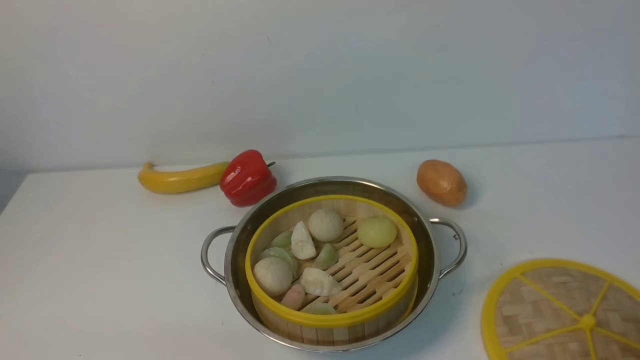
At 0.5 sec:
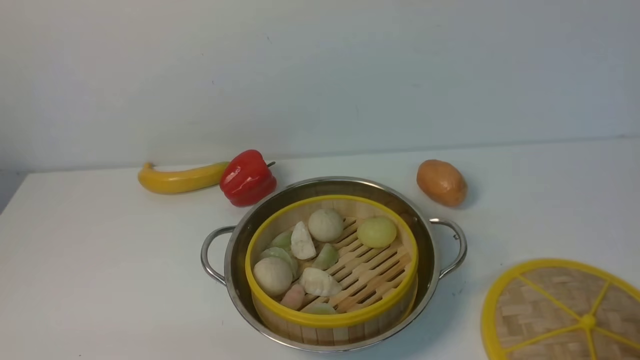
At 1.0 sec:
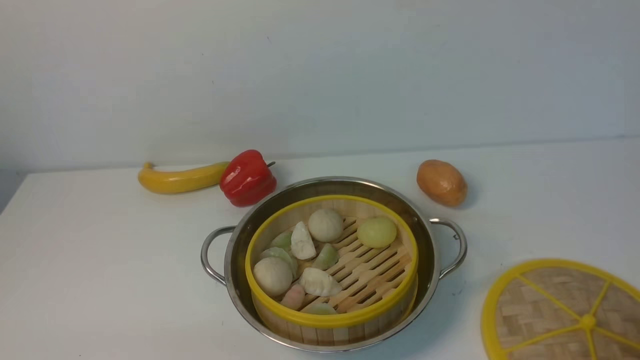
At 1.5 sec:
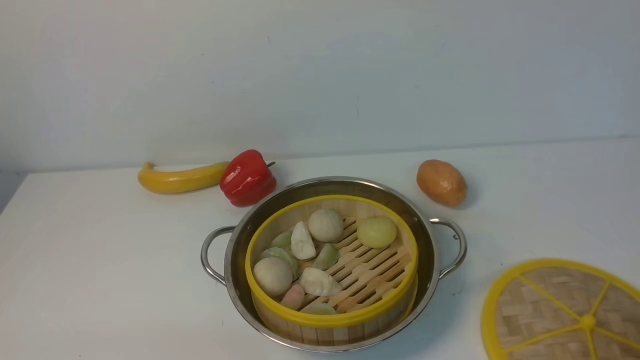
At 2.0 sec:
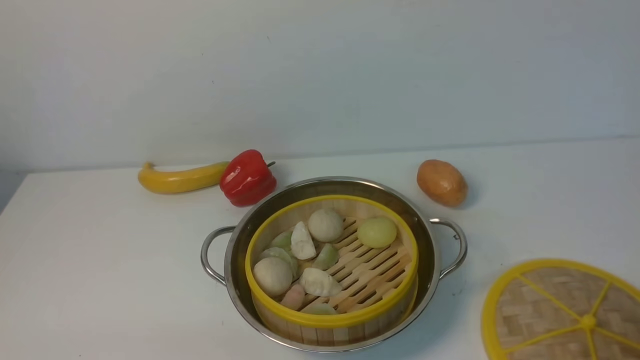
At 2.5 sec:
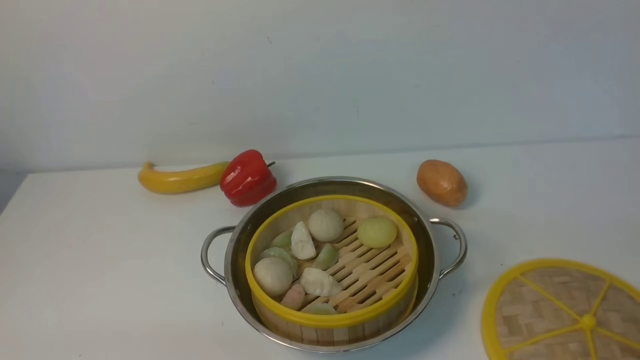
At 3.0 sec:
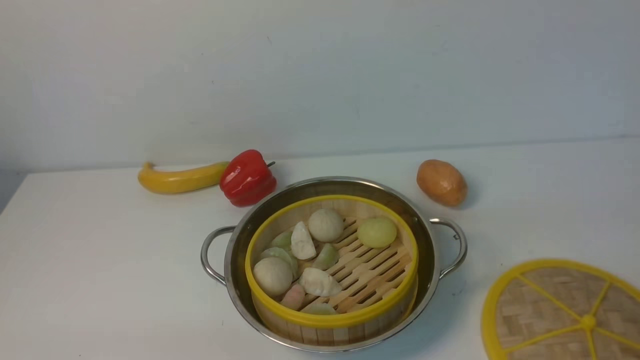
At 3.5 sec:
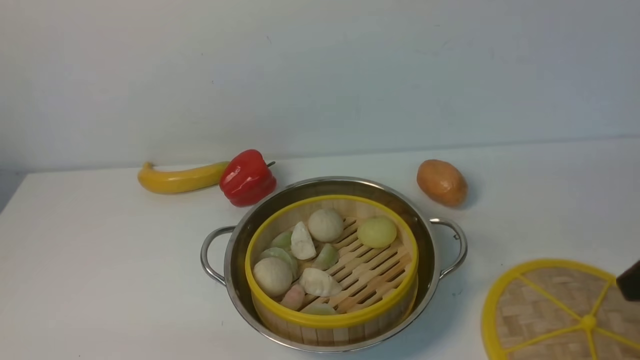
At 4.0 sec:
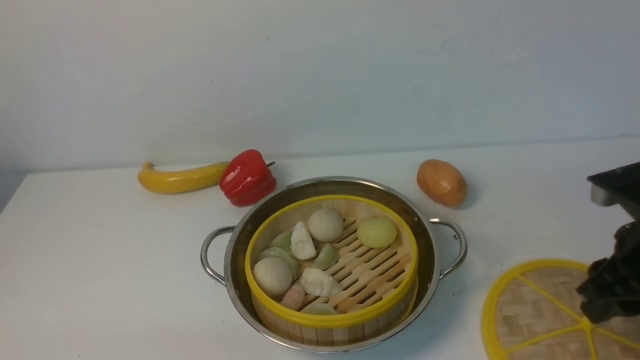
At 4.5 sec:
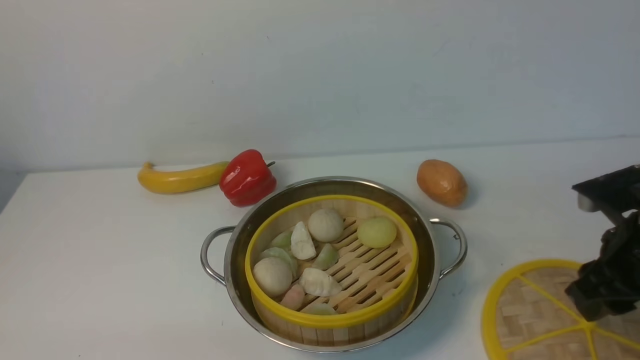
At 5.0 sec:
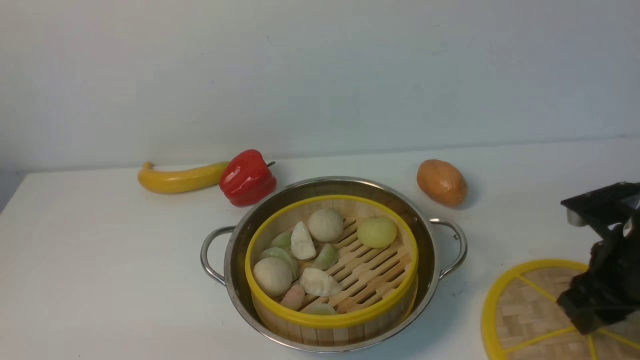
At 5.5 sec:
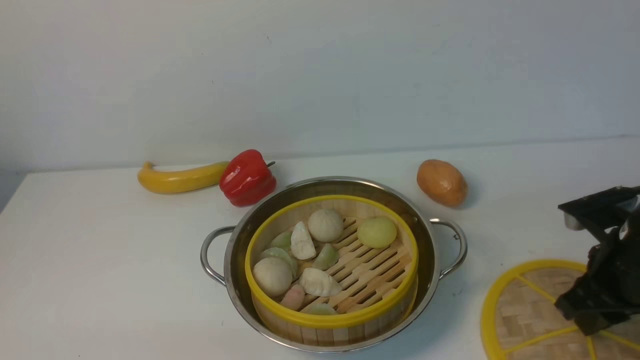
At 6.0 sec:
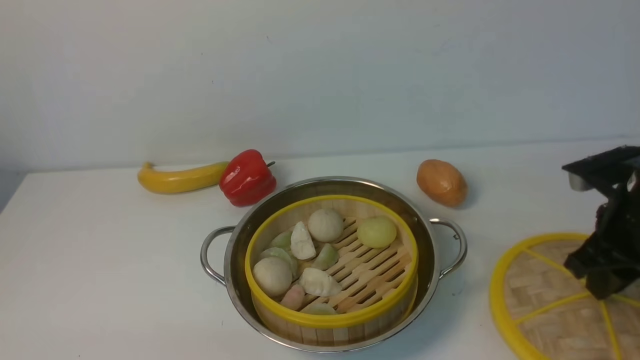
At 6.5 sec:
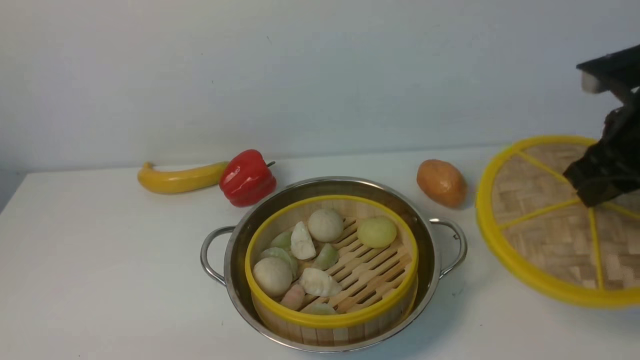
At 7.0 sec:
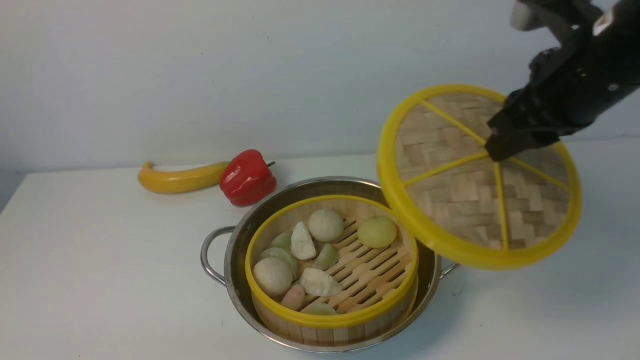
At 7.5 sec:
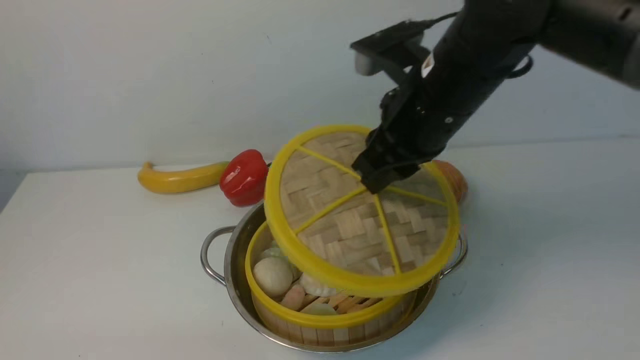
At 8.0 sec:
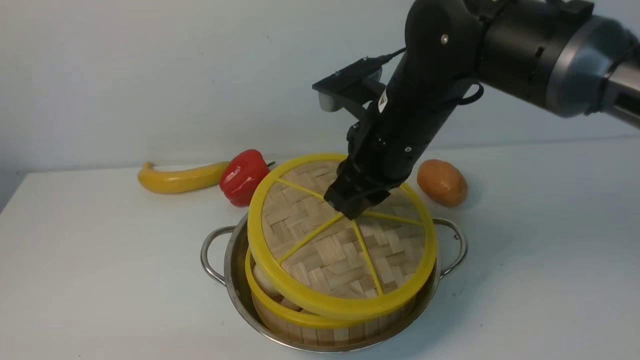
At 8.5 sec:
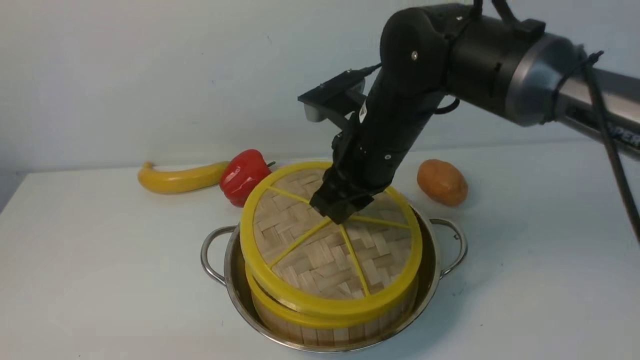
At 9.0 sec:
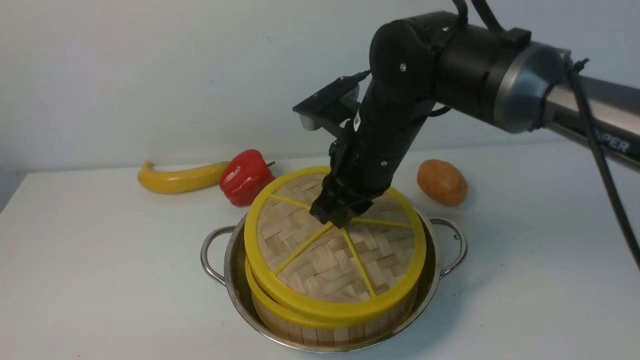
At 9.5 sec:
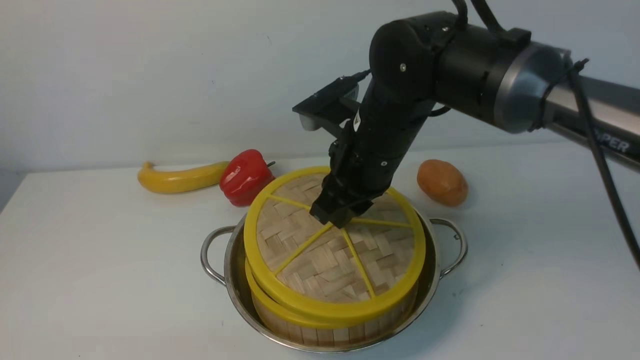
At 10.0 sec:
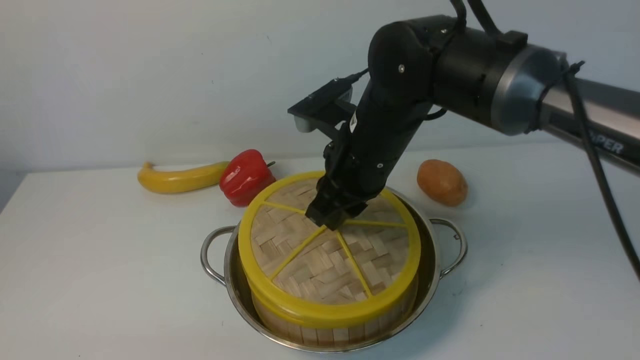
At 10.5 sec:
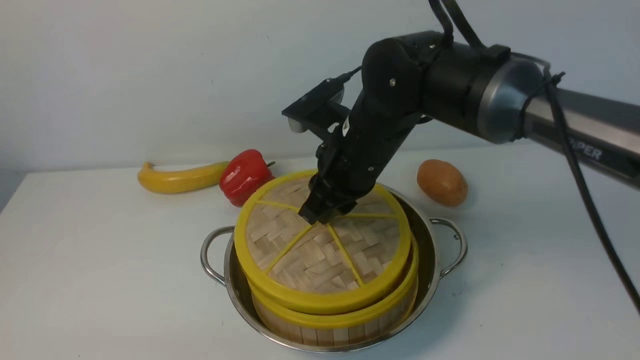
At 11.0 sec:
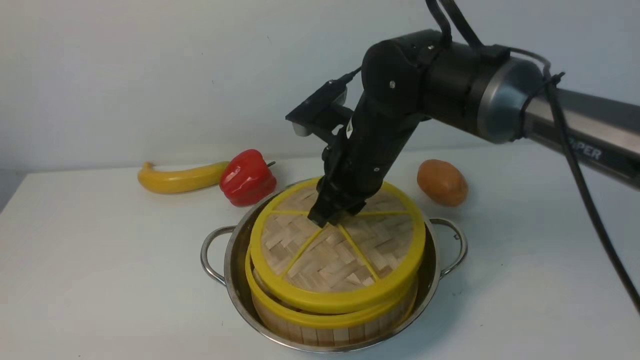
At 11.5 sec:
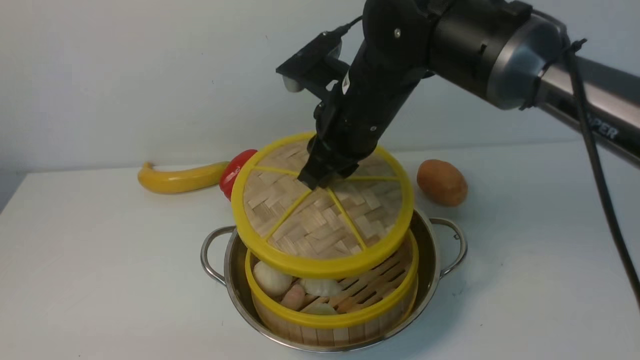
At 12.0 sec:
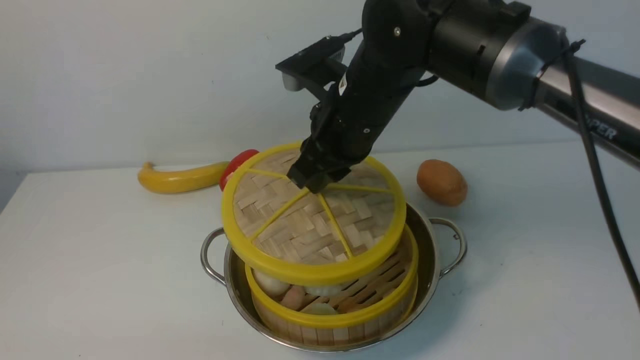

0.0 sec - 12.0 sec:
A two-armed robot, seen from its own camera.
Task of the whole recording: place the steamer in the pot on the white table, and put the lid on the steamer.
Step, 0.0 sec - 6.0 sec: use the right arm to lift the lid of the steamer.
2.0 sec - 4.0 sec: The right gripper goes roughly 20 cm forward.
4.0 sec - 6.0 sec: The right gripper closes its fingers.
6.0 sec - 8.0 sec: The right gripper moves to the left, some 20 cm.
8.0 sec - 12.0 sec: The grippers make only small movements.

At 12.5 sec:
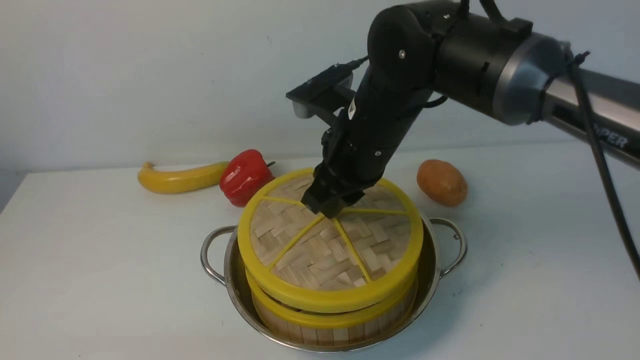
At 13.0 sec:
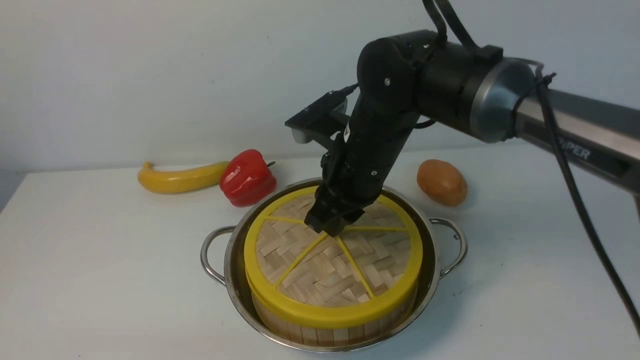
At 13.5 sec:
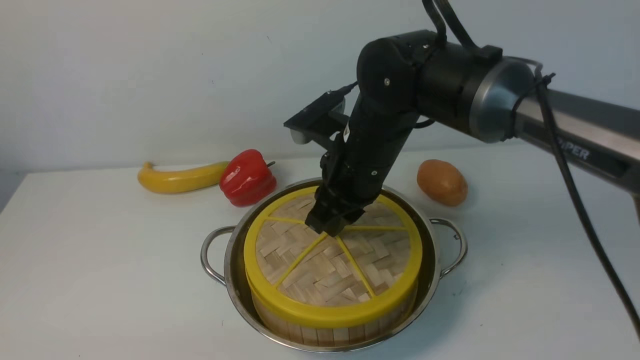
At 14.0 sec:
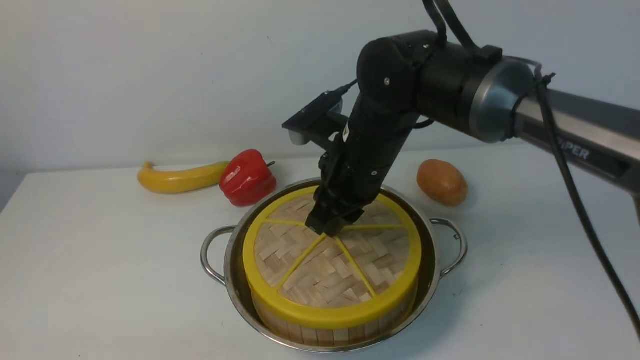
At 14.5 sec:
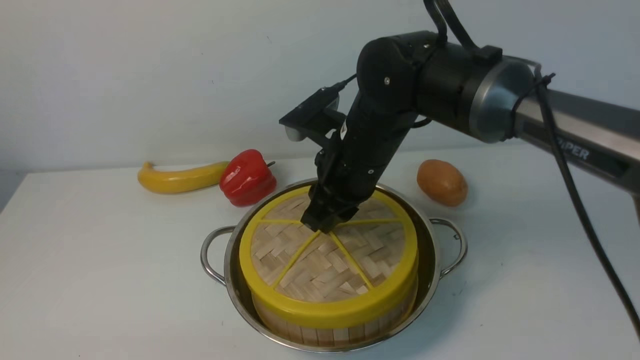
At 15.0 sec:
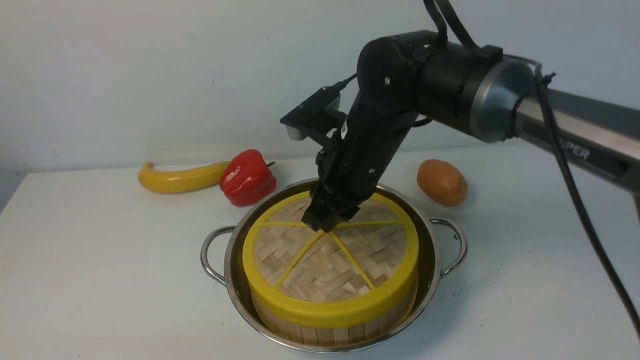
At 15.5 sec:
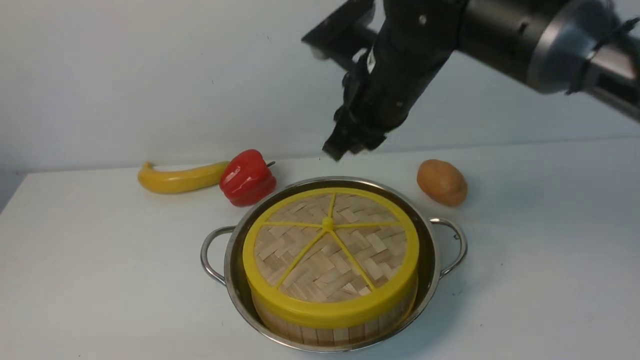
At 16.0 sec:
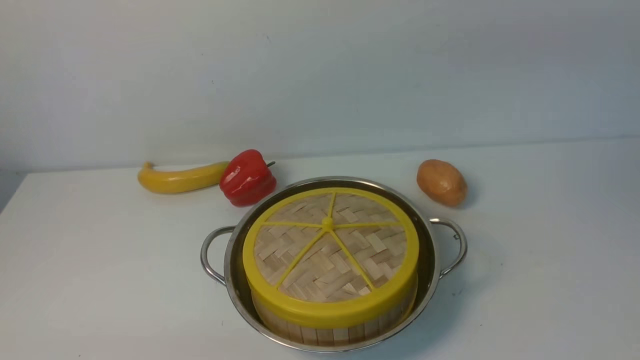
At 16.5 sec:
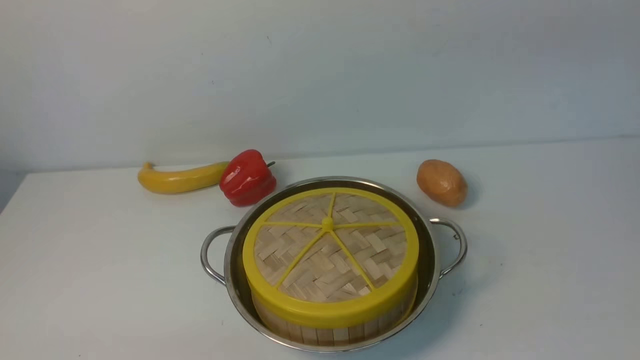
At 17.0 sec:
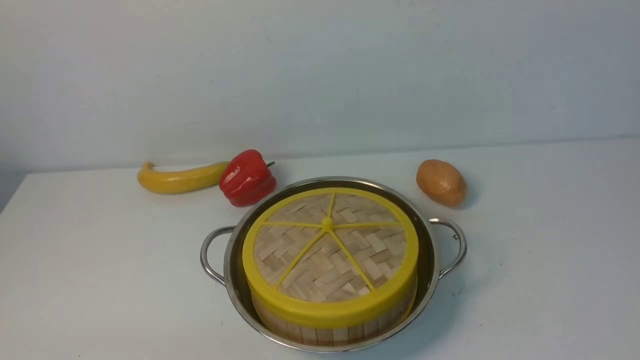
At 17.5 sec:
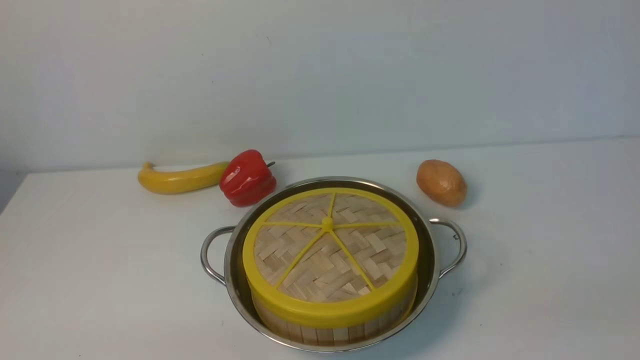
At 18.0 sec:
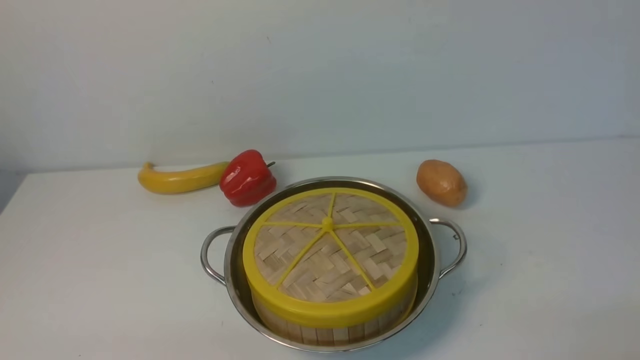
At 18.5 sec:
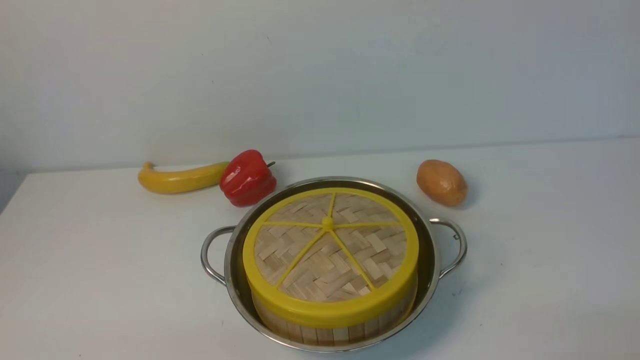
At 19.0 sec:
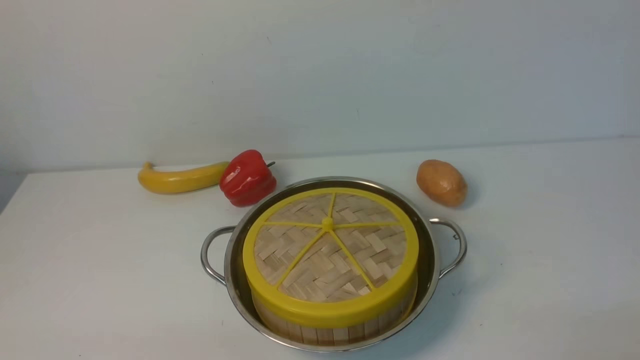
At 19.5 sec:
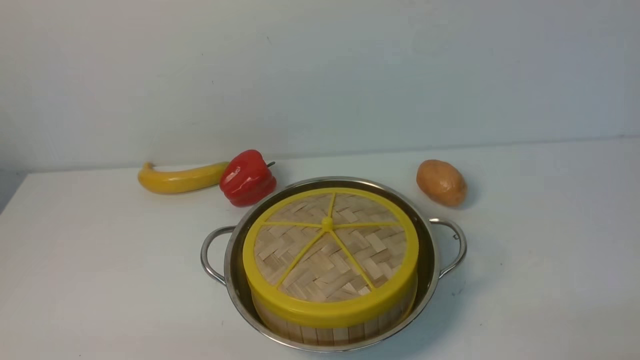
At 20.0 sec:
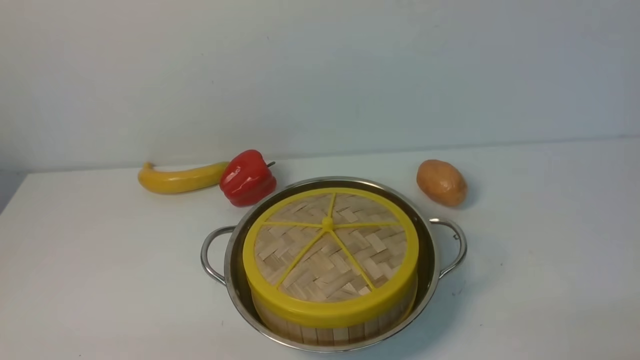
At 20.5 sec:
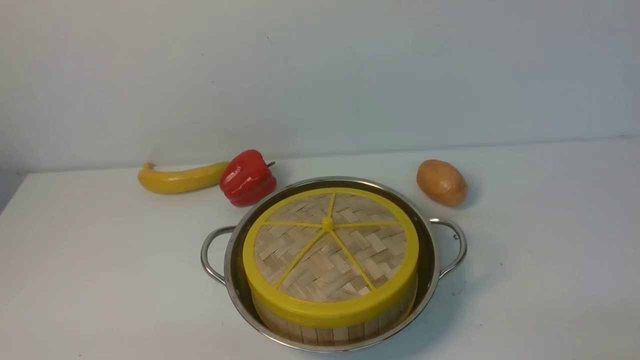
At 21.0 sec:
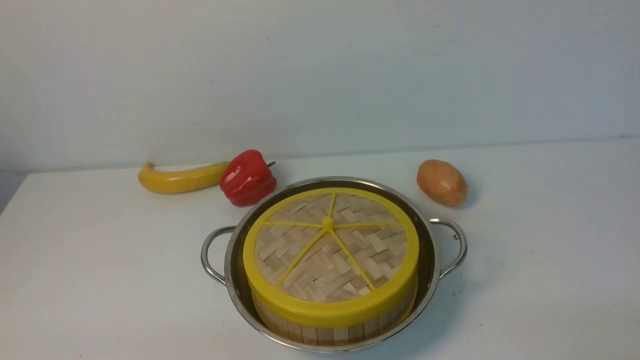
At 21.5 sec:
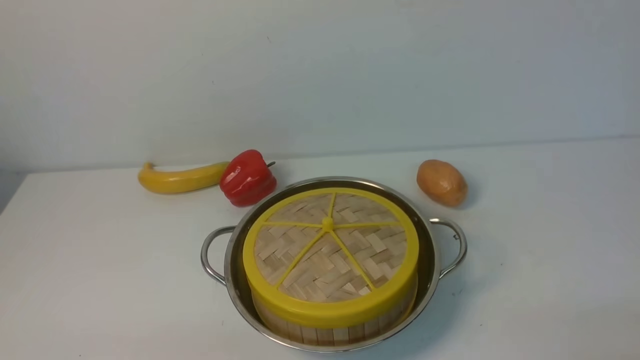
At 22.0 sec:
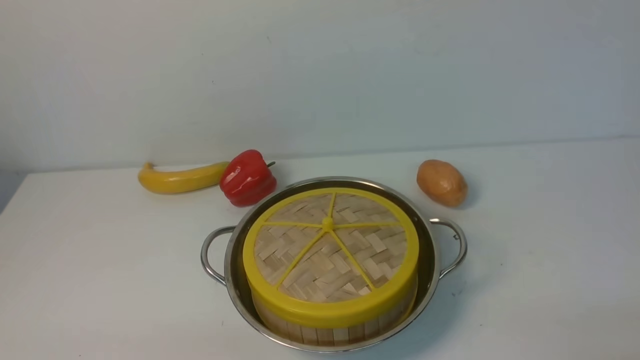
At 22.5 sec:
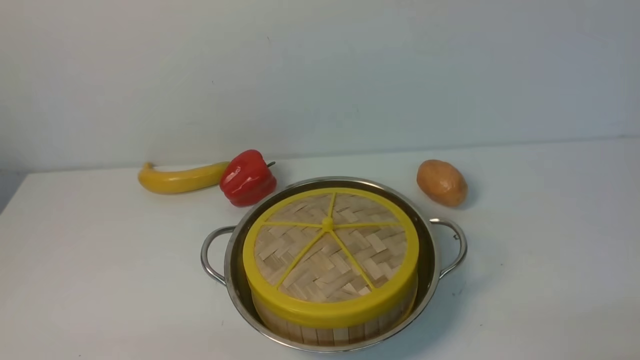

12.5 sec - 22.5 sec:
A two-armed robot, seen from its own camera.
Task of the whole recording: place the steamer in the pot on the white table, and put the lid on the steamer.
Step, 12.5 sec - 16.0 sec: use the right arm to place the steamer lid on the steamer.
12.5 sec - 14.5 sec: The grippers make only small movements.
14.5 sec - 16.5 sec: The right gripper shifts approximately 30 cm upward and to the right, and opens up.
20.5 sec - 22.5 sec: Both grippers stay about where they are.
